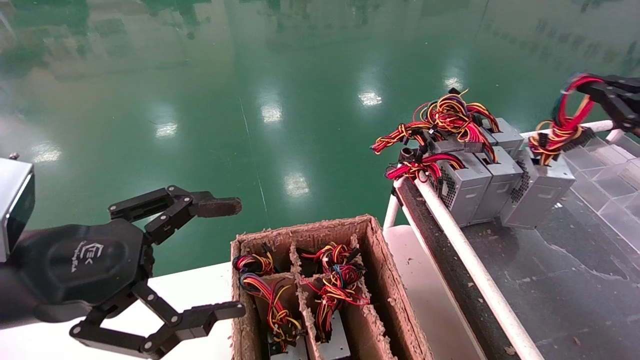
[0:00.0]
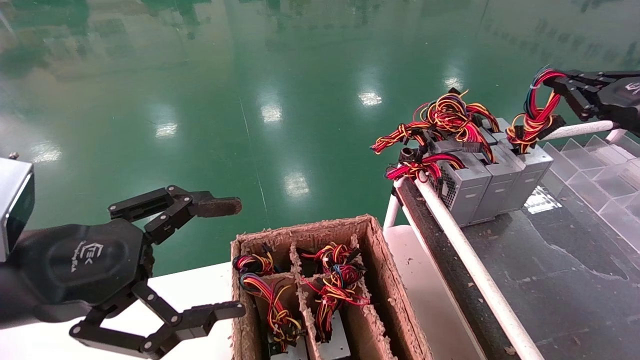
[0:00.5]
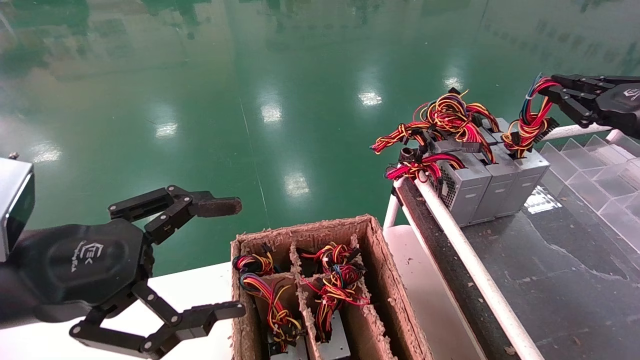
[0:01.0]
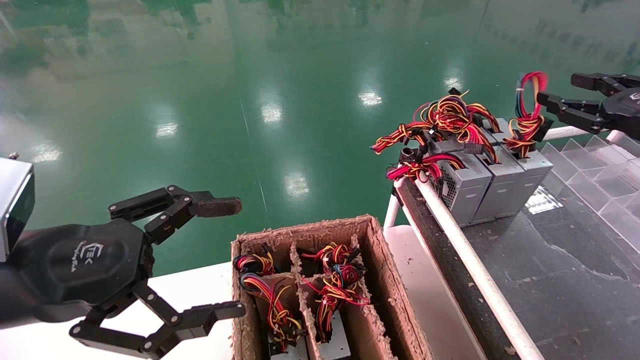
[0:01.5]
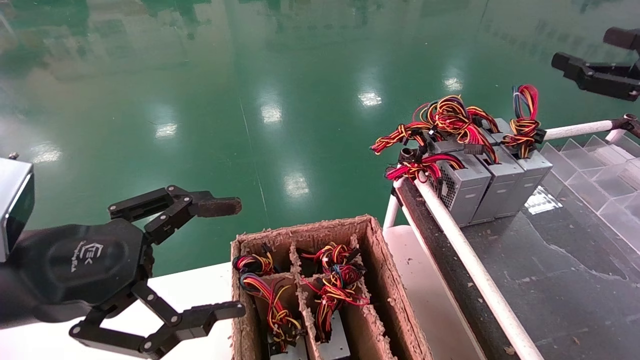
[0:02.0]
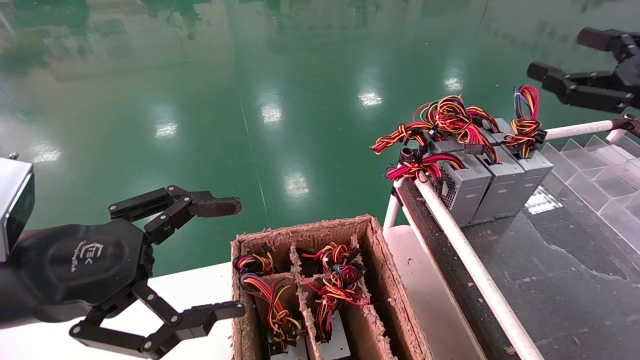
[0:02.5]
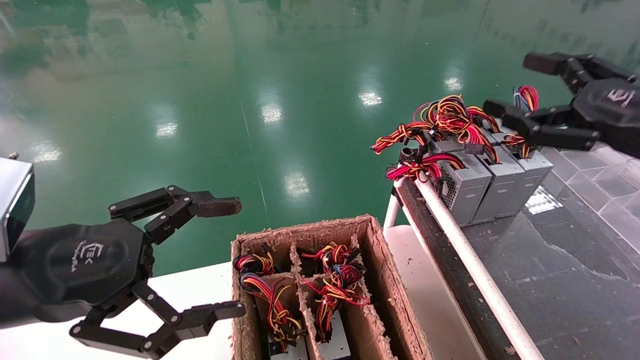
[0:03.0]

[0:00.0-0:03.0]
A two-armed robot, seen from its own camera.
0:00.0 to 0:01.5: The right gripper opens its fingers.
0:01.5 to 0:03.0: The right gripper goes some 10 cm to the left and backward, and opens its fingers.
